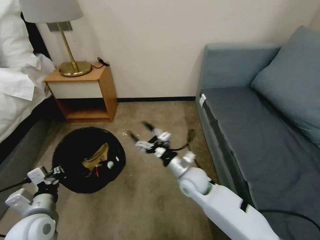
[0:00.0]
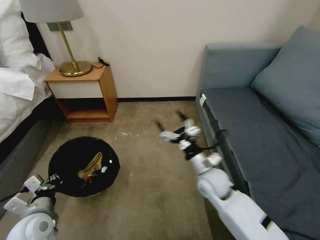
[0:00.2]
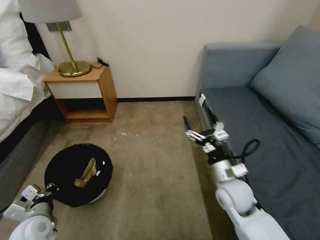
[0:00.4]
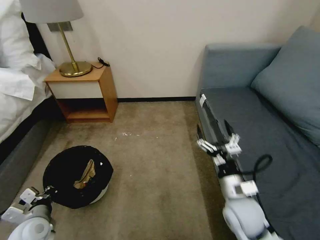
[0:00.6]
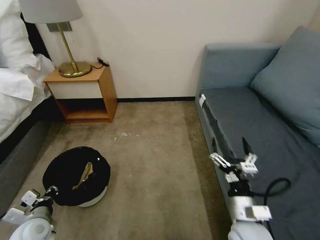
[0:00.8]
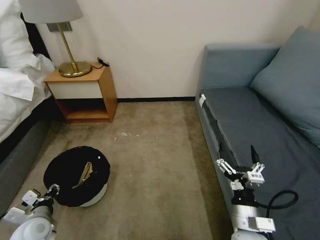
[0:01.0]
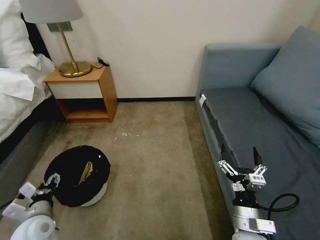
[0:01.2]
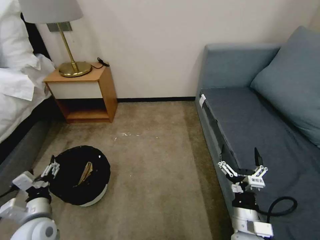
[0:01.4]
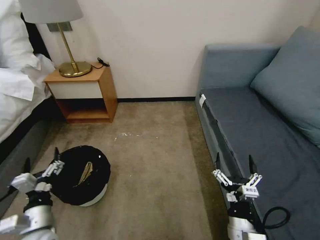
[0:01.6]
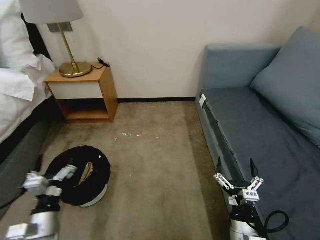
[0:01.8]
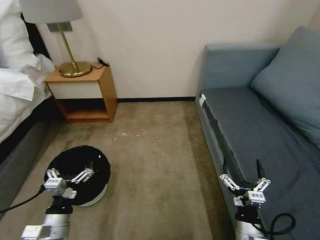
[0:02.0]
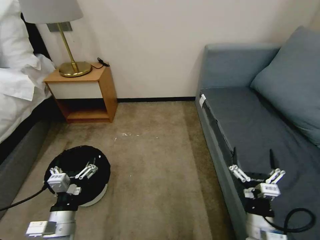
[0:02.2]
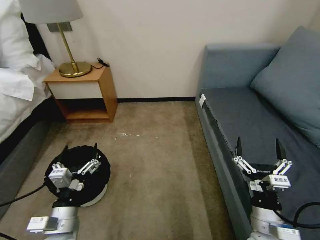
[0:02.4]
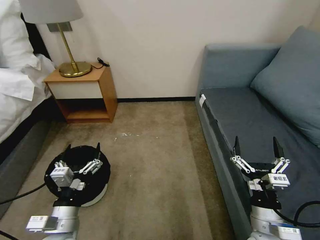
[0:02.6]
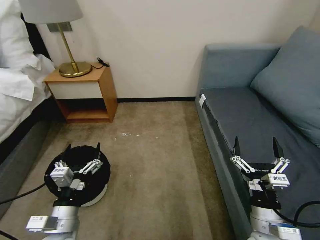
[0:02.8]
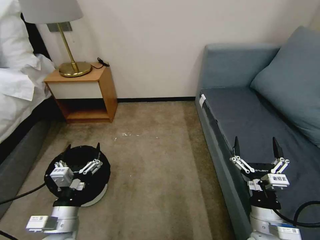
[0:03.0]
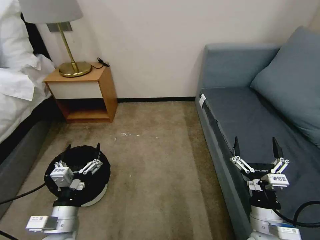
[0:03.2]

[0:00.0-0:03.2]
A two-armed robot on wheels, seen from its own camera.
Task of the whole recording: Pick up the trash bin, then pick up the garbage on the floor and place it into the trash bin.
0:00.0 to 0:01.6: The left gripper opens up, while the right gripper shifts roughly 25 cm backward and to the right.
0:01.6 to 0:03.2: The left gripper heads to the right, covering about 10 cm, while the right gripper changes place by some 5 cm.

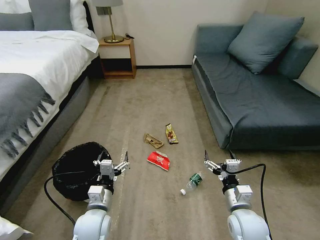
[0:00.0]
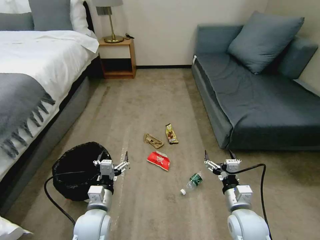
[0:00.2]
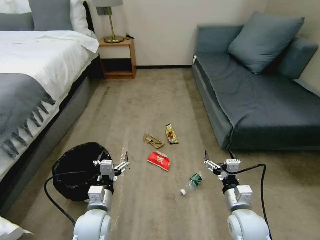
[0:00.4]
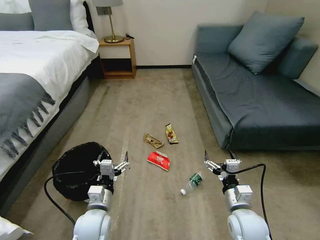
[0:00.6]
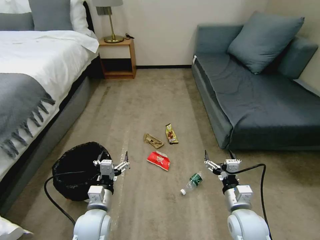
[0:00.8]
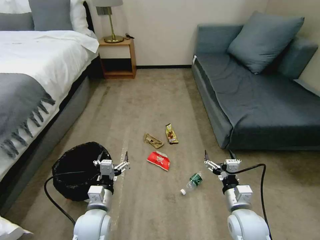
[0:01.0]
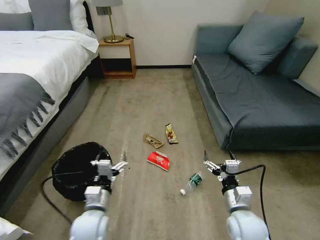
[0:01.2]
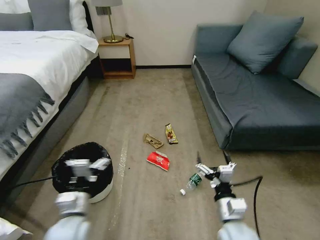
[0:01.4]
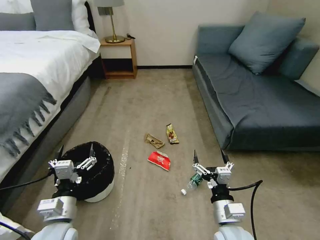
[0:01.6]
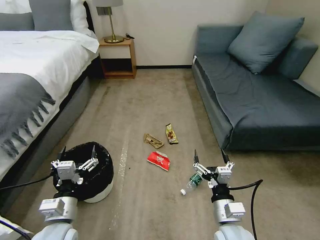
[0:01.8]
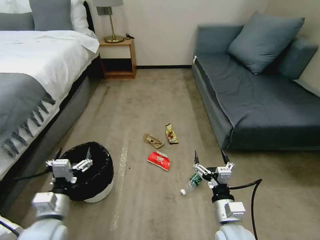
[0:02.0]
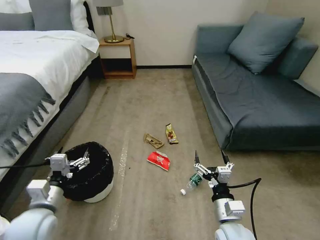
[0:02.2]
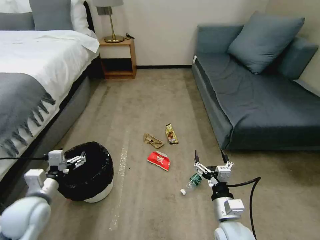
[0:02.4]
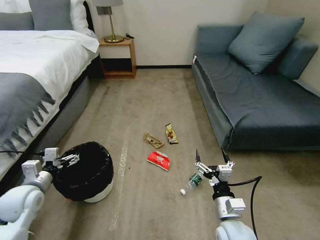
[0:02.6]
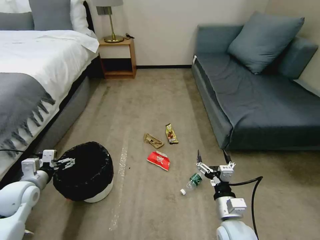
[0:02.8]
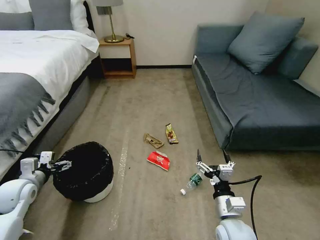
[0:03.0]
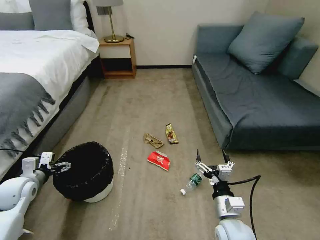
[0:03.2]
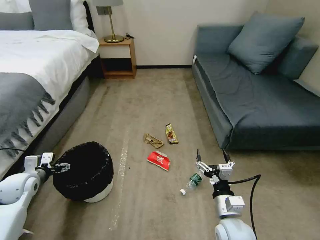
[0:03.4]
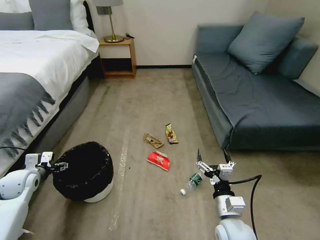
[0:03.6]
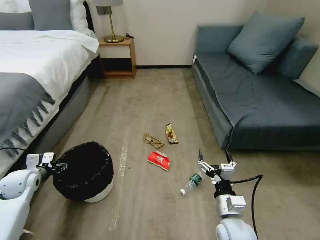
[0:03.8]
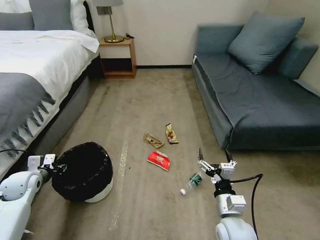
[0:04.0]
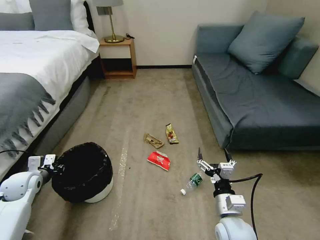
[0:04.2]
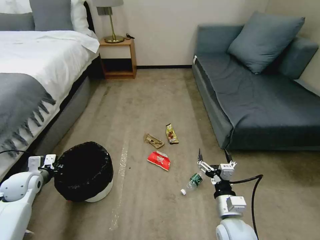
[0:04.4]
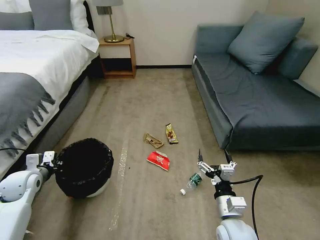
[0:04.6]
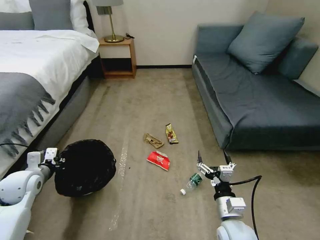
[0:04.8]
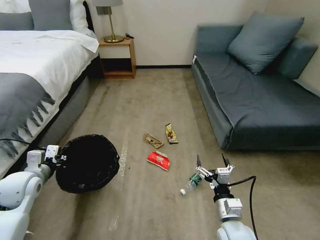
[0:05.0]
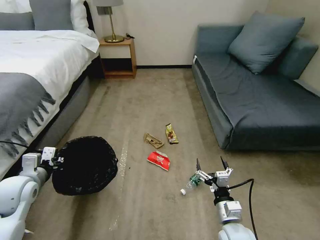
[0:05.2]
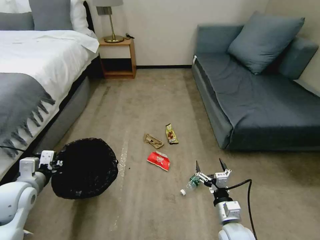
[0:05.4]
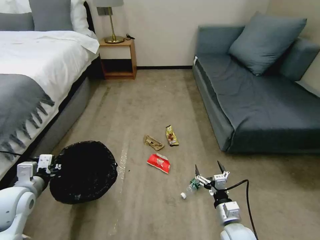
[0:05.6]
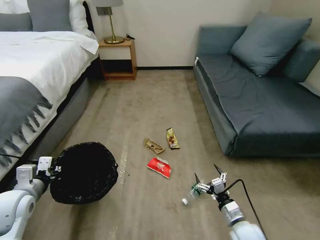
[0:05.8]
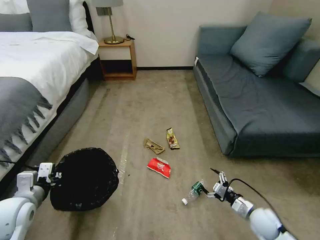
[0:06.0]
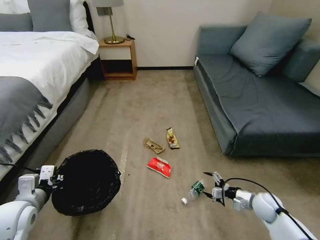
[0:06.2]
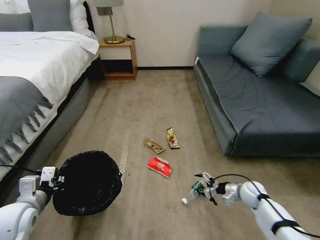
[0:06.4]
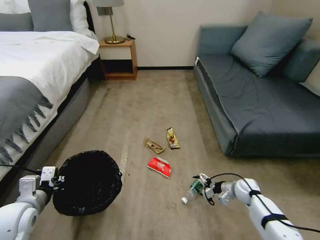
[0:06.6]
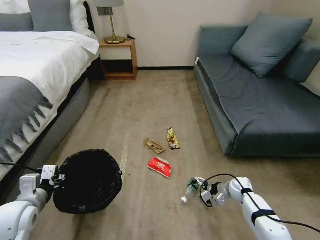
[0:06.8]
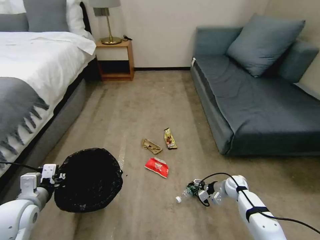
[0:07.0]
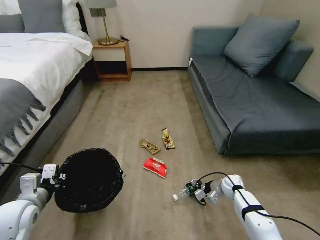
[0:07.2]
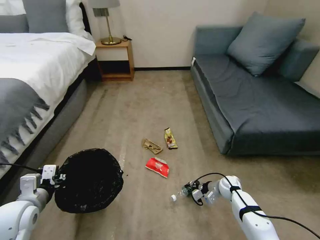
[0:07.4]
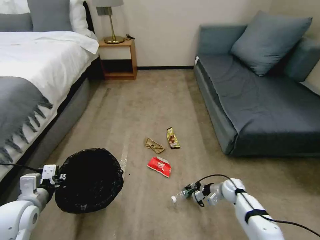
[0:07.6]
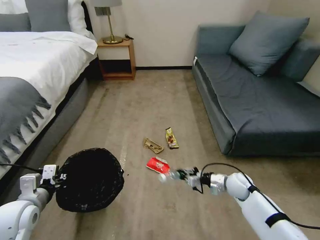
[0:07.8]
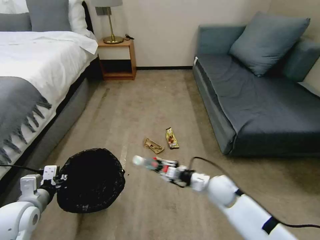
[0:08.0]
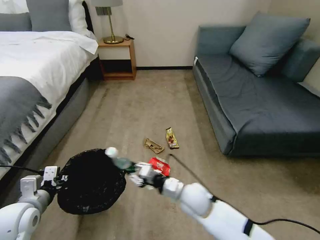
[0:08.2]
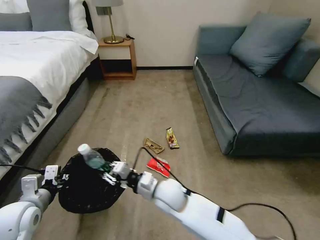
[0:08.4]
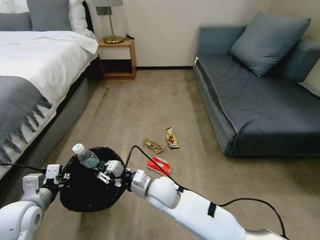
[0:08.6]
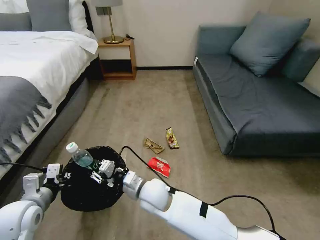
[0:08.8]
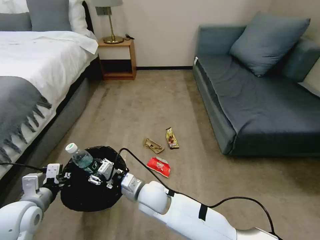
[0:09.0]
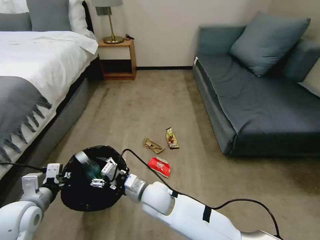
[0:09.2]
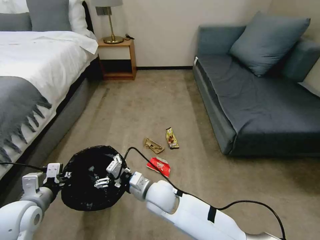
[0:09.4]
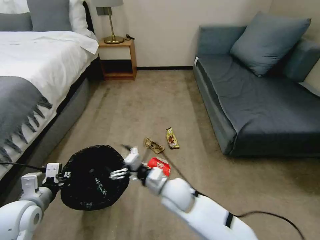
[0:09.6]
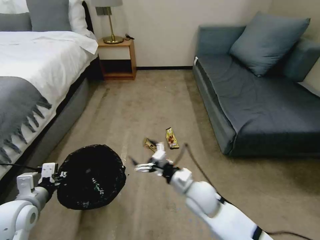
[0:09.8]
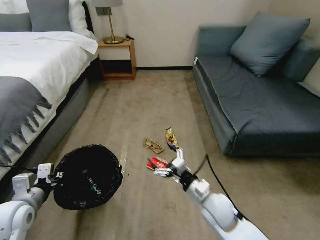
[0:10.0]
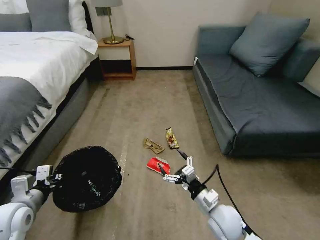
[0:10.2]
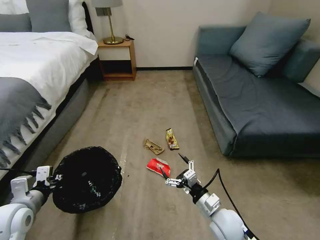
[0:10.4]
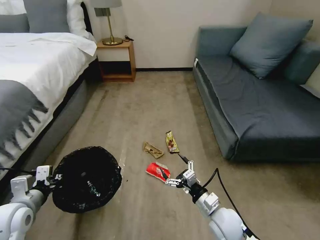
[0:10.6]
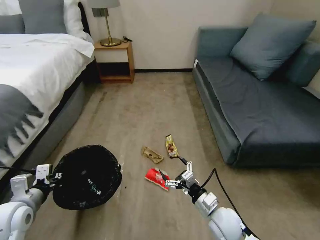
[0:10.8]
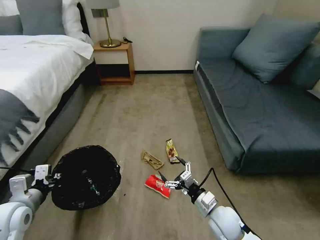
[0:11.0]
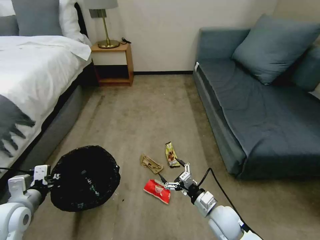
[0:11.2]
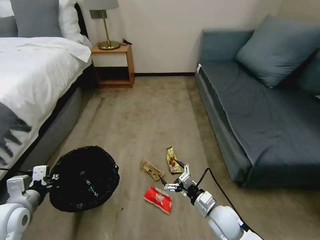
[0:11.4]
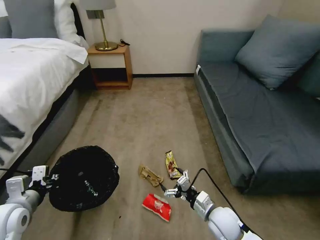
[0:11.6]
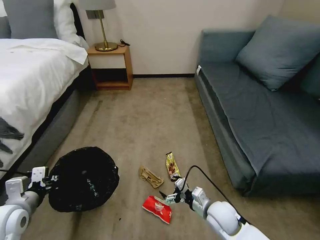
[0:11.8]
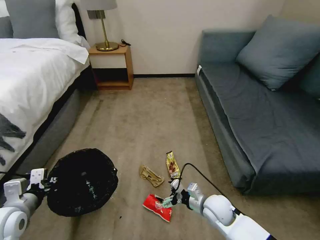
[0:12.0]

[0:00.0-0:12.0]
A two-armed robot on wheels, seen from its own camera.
Task of the whole recording: Pick up the trash bin, then pick up the garbage on the floor and place it into the trash bin.
0:01.6 to 0:03.0: The left gripper travels to the left and forward by some 20 cm.
0:03.0 to 0:04.4: The left gripper moves about 5 cm, and closes its fingers.
0:04.4 to 0:06.0: The right gripper moves to the right and downward, approximately 20 cm; the left gripper moves backward, to the right and upward, approximately 15 cm.
0:06.0 to 0:07.6: The right gripper travels forward by roughly 15 cm, and closes its fingers.
0:07.6 to 0:09.0: The right gripper moves to the left and upward, about 40 cm.
0:09.0 to 0:10.4: The right gripper heads to the right, covering roughly 25 cm, and opens its fingers.
0:10.4 to 0:12.0: The right gripper goes some 5 cm forward.

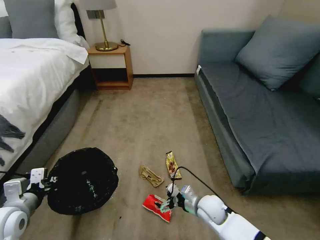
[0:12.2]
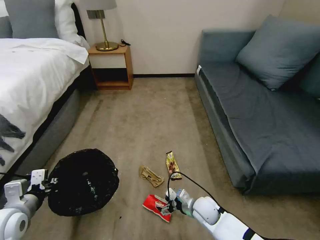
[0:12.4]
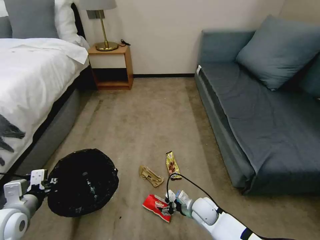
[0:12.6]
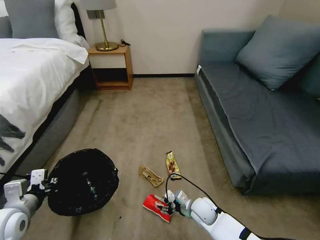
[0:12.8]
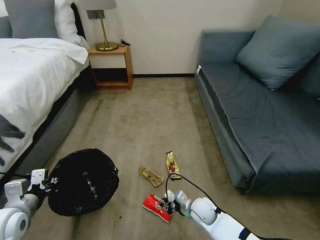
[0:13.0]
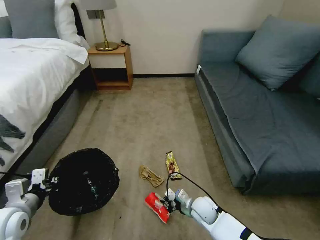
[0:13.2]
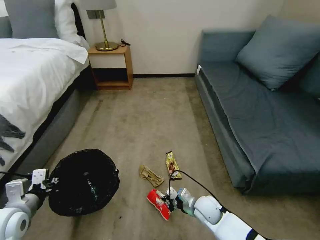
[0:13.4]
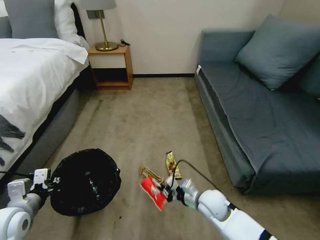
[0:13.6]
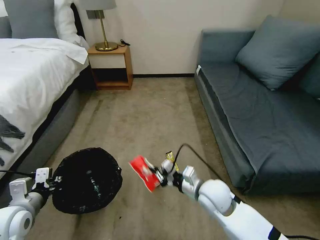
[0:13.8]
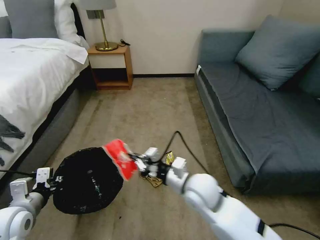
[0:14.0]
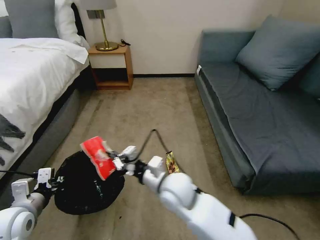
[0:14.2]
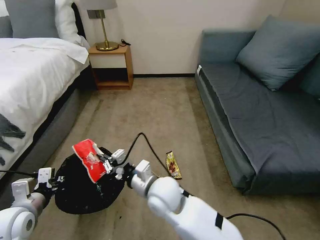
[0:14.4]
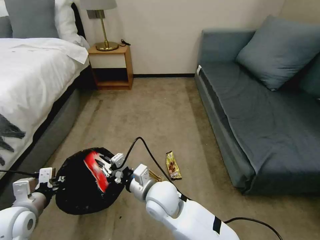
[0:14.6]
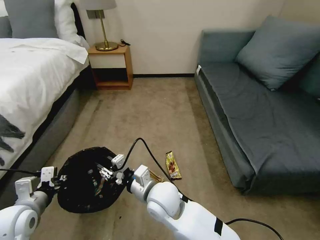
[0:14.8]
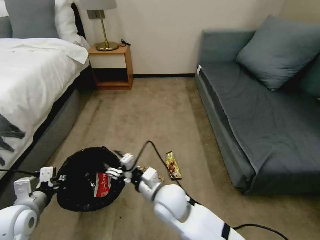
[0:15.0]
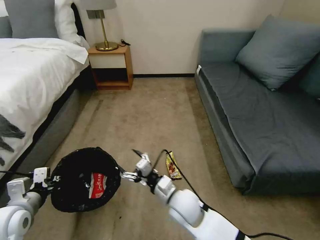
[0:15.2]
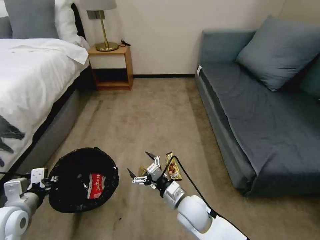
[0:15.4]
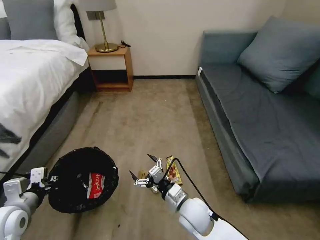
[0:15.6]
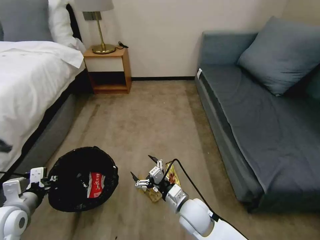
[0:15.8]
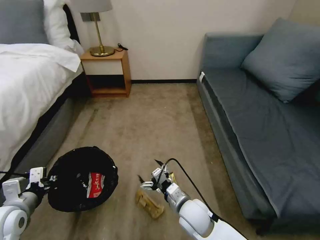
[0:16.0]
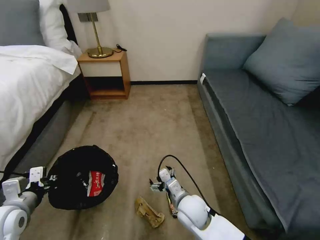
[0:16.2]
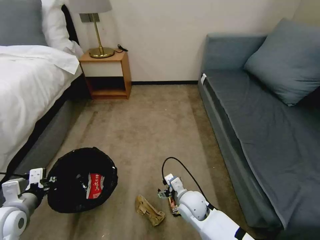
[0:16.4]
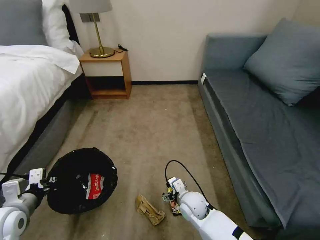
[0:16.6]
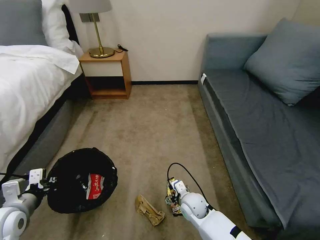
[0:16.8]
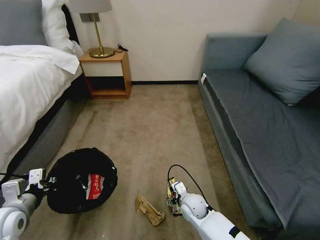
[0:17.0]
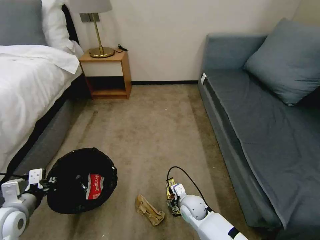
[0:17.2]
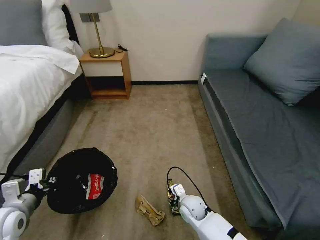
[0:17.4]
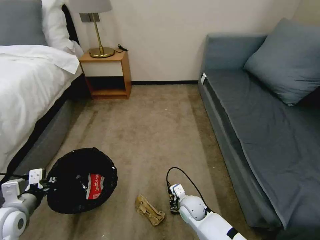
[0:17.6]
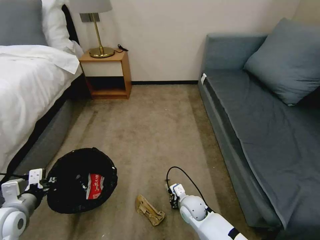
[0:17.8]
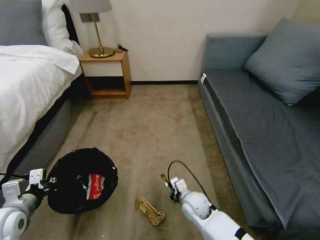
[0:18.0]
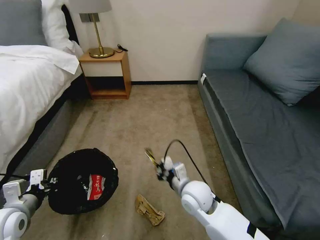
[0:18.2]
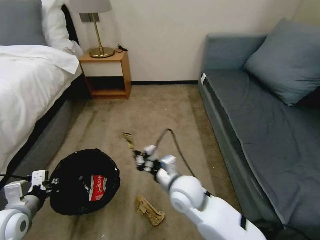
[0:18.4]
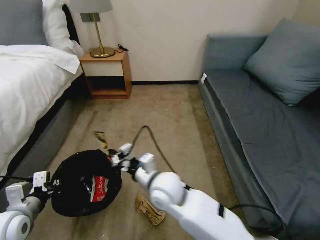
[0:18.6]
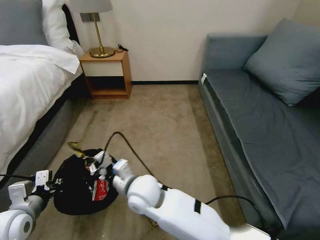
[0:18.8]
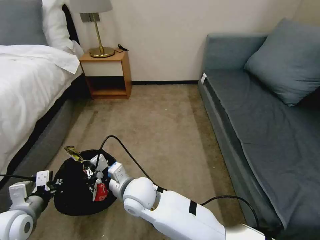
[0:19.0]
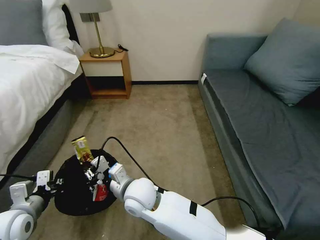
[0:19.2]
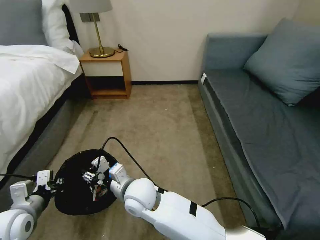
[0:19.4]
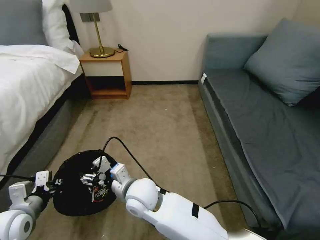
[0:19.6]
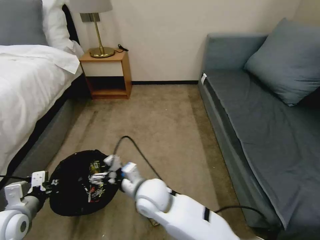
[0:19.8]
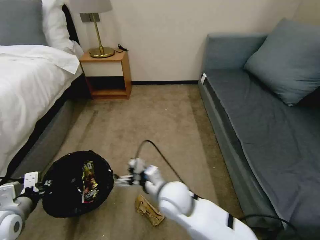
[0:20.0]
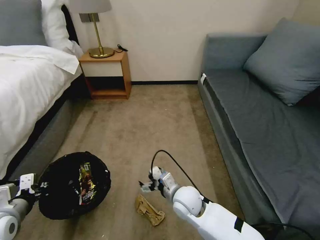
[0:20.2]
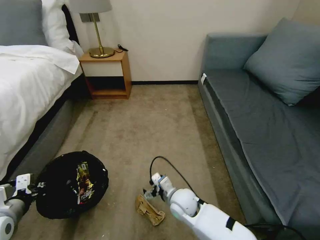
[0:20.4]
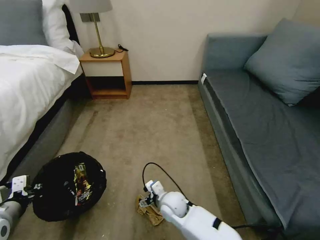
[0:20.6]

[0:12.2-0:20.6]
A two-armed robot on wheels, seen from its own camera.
Task of the whole recording: Pick up the trash bin, then pick up the garbage on the floor and place it into the trash bin.
0:12.2 to 0:13.6: The right gripper closes.
0:13.6 to 0:15.0: The right gripper shifts approximately 20 cm to the left and upward, and opens its fingers.
0:15.0 to 0:16.4: The right gripper travels downward and to the right by roughly 15 cm, and opens.
0:16.4 to 0:17.8: The right gripper heads downward, covering some 10 cm, and closes its fingers.
0:17.8 to 0:19.2: The right gripper goes approximately 25 cm to the left and upward.
0:19.2 to 0:20.6: The right gripper is displaced downward and to the right by approximately 20 cm, and opens its fingers, while the left gripper heads to the left, covering about 5 cm.
